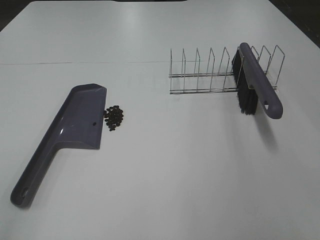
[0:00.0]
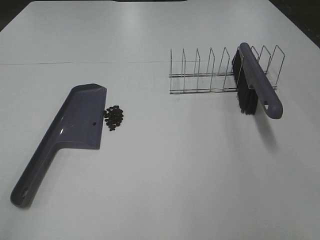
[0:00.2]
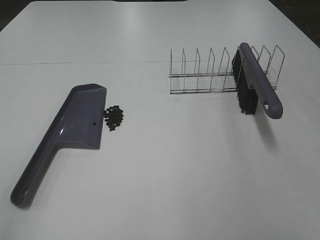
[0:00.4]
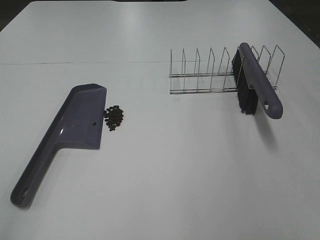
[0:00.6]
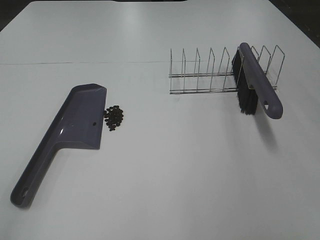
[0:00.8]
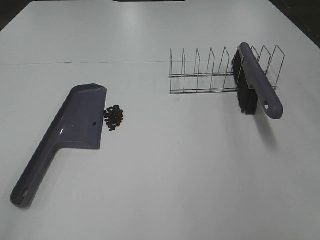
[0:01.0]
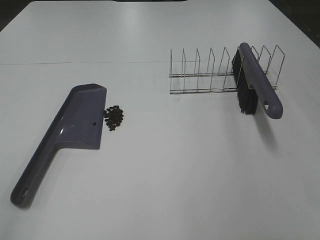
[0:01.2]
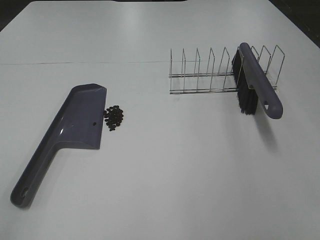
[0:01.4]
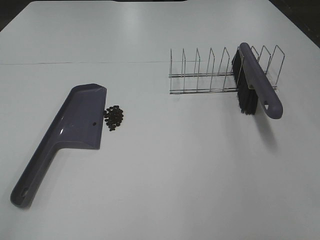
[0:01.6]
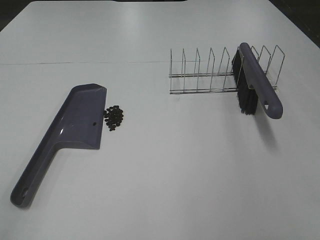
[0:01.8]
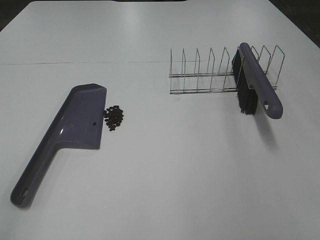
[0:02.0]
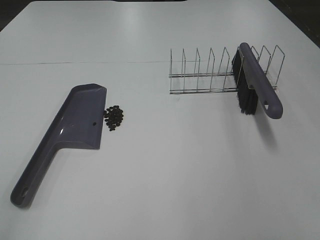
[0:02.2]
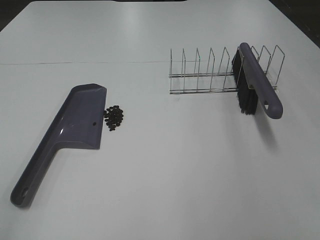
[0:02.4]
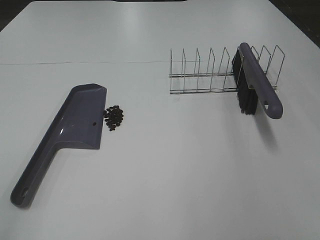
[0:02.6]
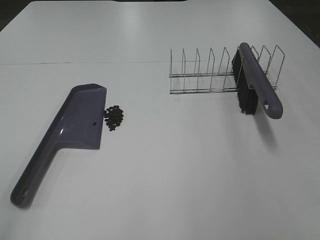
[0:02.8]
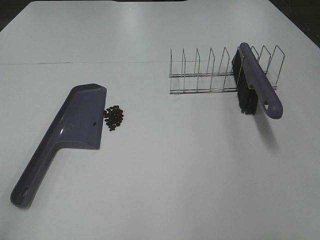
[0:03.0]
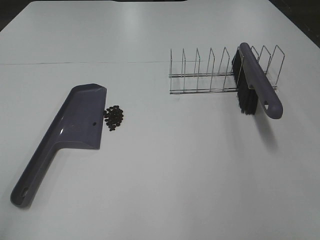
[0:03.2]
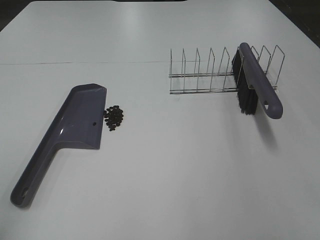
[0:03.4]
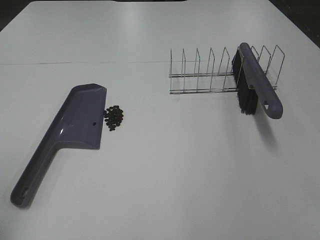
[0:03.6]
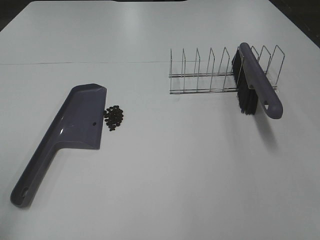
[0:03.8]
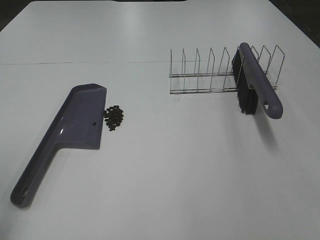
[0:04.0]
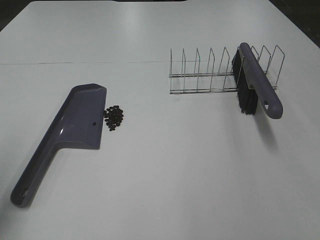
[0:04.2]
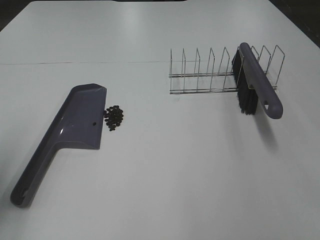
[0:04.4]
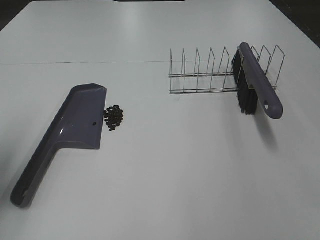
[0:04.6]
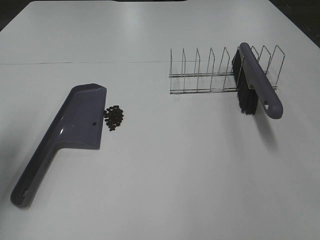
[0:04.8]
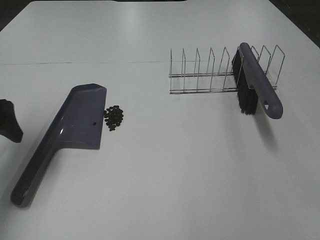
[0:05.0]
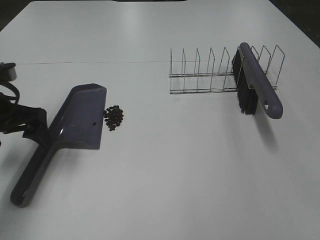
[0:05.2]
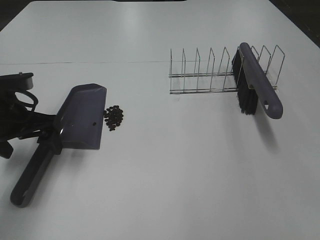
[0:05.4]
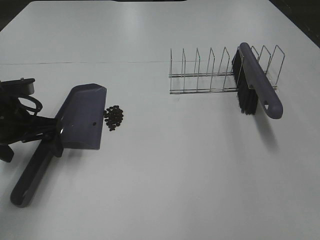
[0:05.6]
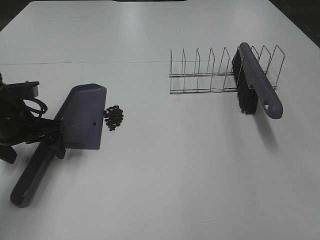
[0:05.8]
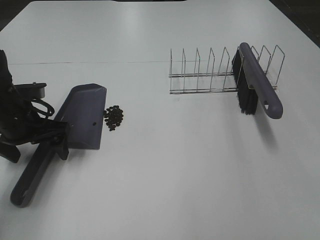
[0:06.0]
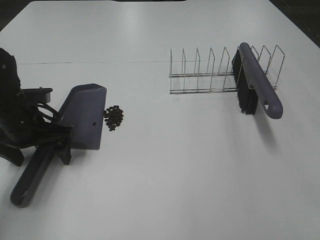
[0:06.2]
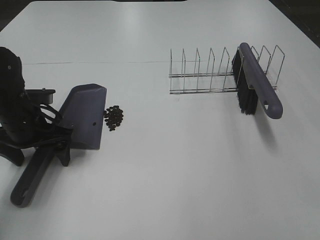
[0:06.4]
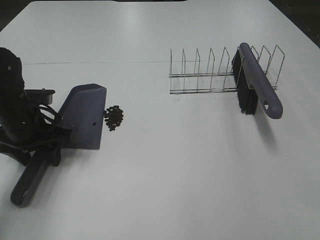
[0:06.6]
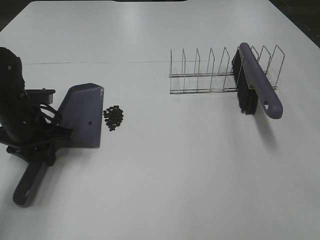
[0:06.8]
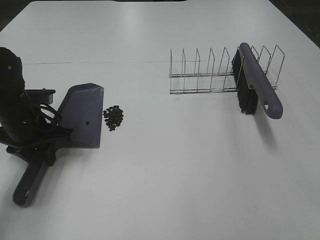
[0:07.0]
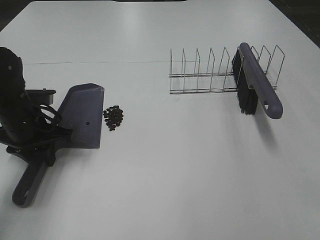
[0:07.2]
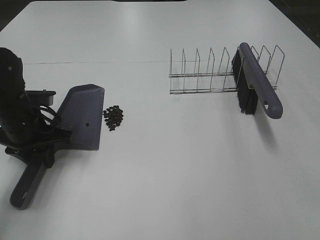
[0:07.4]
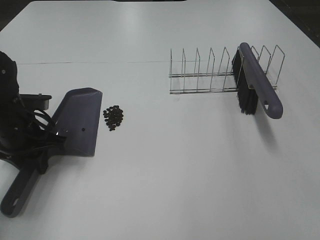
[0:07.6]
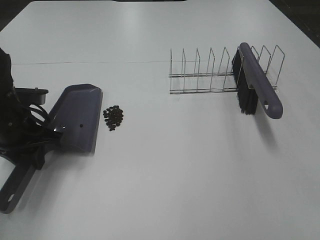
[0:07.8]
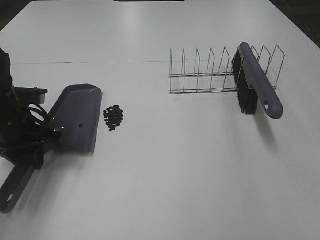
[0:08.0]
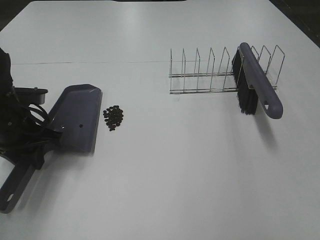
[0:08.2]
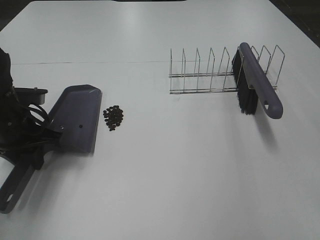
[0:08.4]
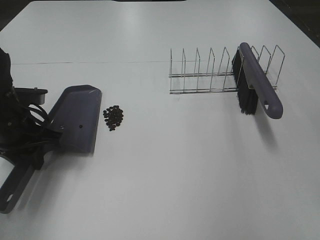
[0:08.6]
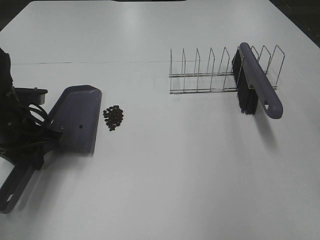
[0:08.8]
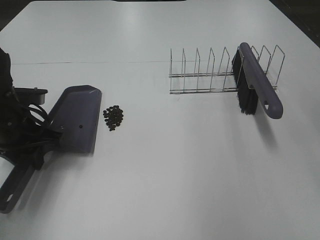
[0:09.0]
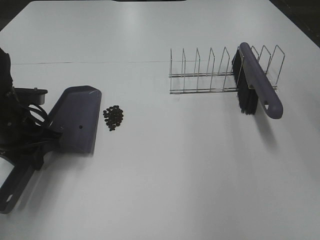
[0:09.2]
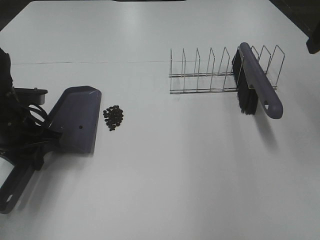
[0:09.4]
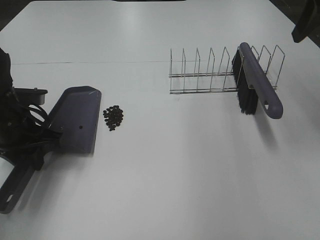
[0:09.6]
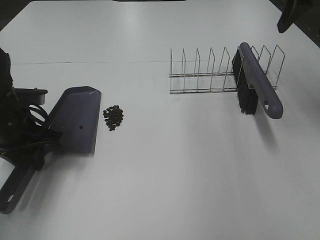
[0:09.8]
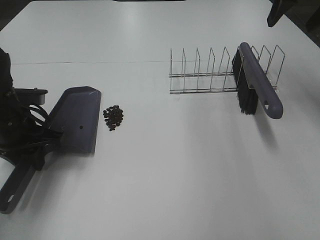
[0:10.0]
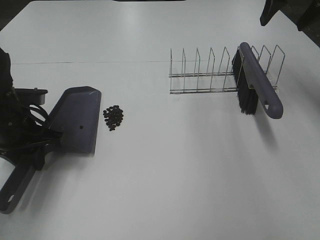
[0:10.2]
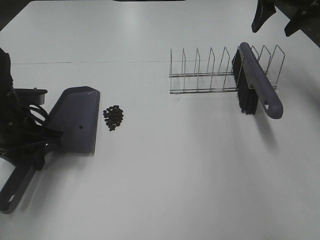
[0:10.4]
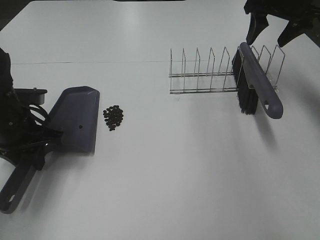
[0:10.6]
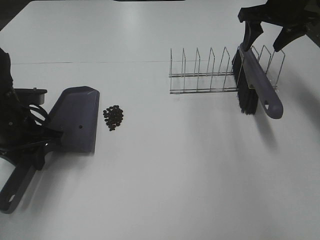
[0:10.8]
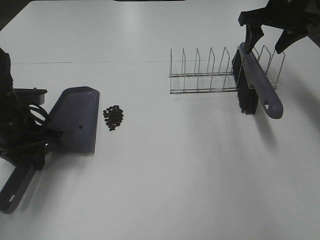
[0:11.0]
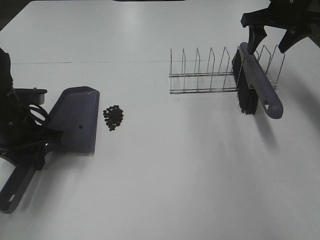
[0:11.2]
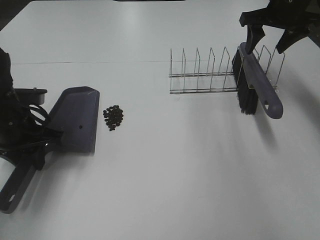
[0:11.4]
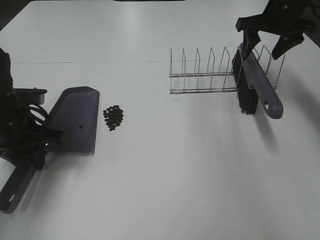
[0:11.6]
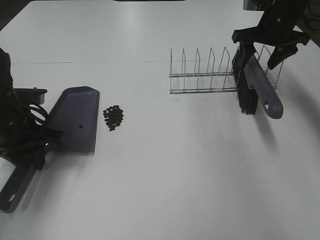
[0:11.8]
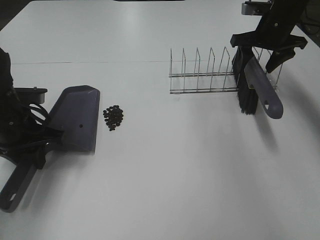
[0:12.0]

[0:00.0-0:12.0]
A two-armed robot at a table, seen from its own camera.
Task of the whole recording: Sweep Coffee Bean.
Step, 0:00.0 to 0:06.8: Left hand: grab the dustpan.
0:00.0 to 0:01.6: Neither gripper changes place.
0:03.0 to 0:04.4: The left gripper moves forward, about 20 cm.
0:04.4 to 0:06.0: The left gripper moves forward, downward and to the right, about 20 cm.
0:06.0 to 0:07.6: The left gripper closes its fingers.
0:09.0 to 0:10.4: The right gripper is displaced forward by about 25 cm.
0:10.4 to 0:12.0: The right gripper shifts roughly 10 cm downward.

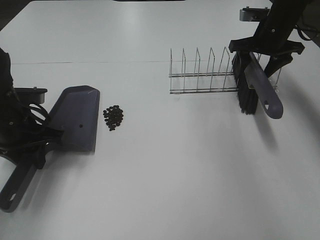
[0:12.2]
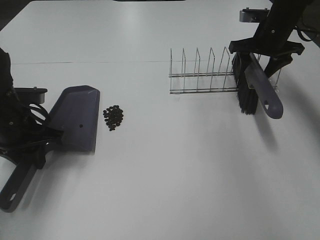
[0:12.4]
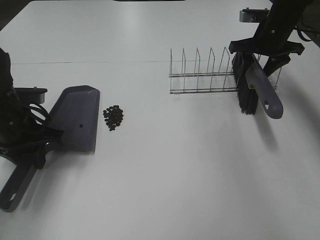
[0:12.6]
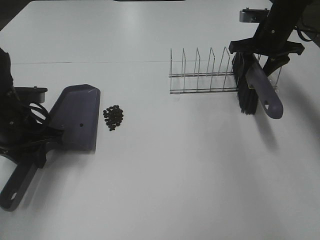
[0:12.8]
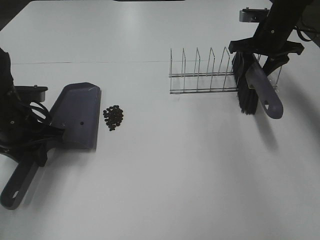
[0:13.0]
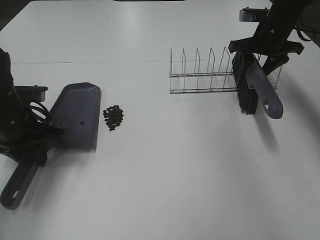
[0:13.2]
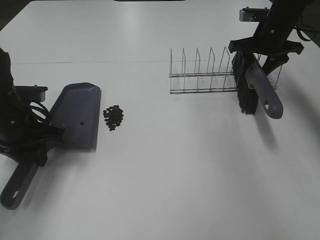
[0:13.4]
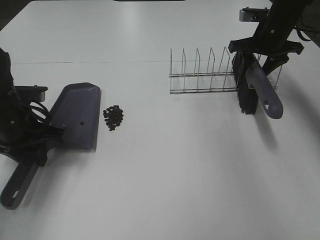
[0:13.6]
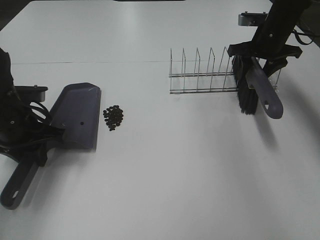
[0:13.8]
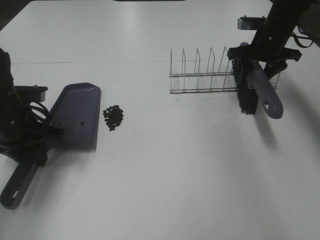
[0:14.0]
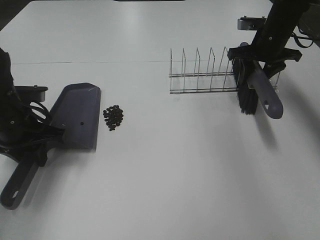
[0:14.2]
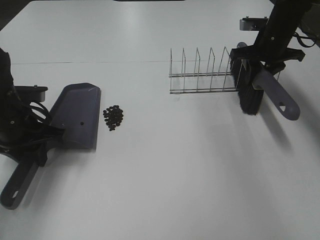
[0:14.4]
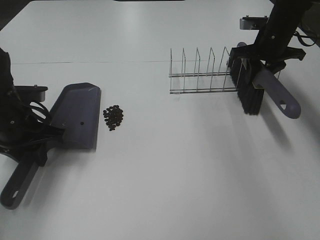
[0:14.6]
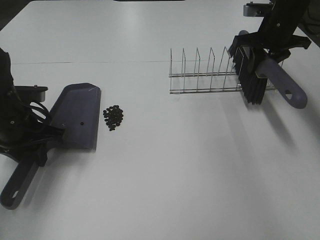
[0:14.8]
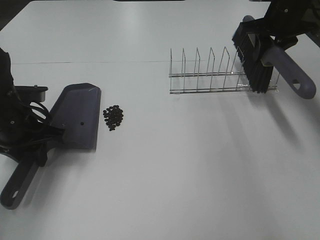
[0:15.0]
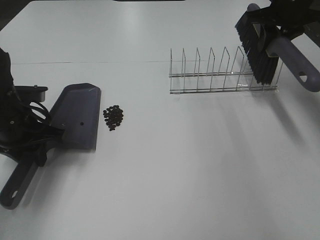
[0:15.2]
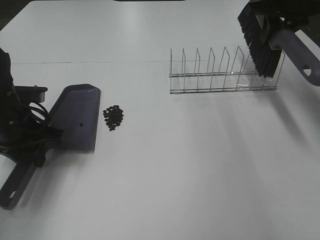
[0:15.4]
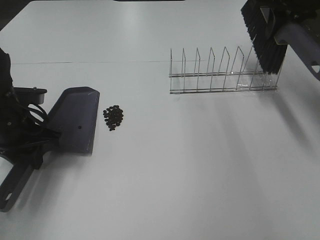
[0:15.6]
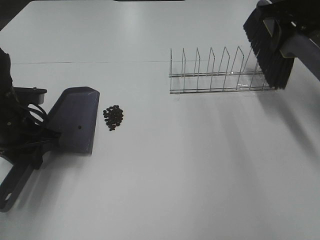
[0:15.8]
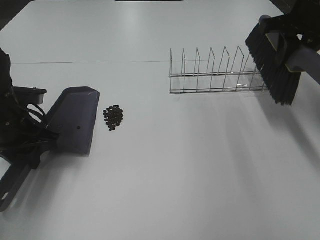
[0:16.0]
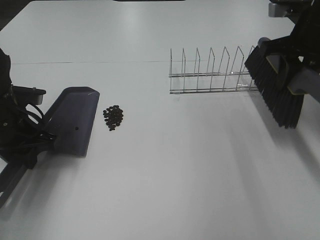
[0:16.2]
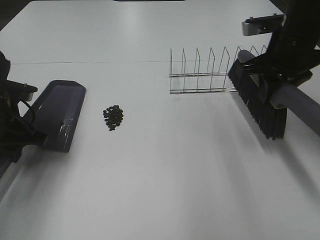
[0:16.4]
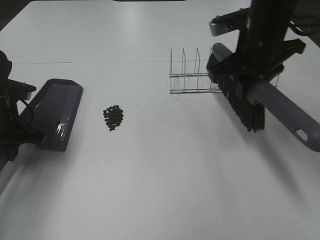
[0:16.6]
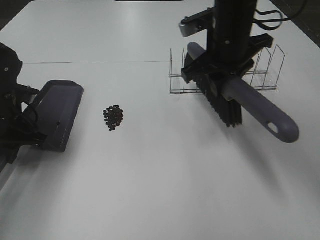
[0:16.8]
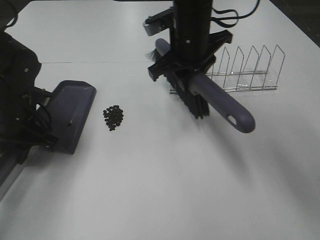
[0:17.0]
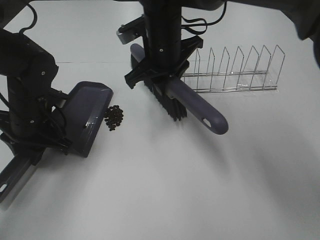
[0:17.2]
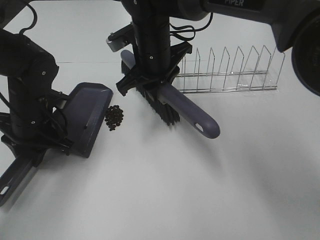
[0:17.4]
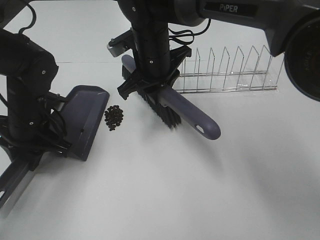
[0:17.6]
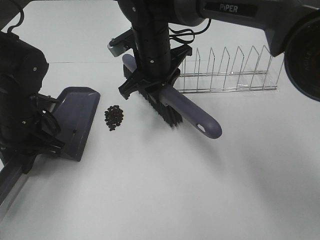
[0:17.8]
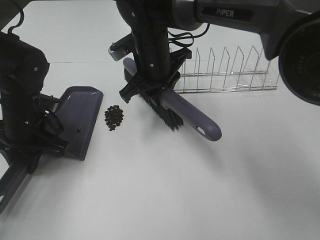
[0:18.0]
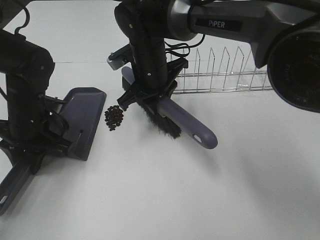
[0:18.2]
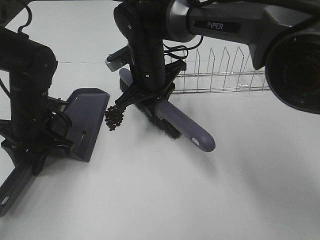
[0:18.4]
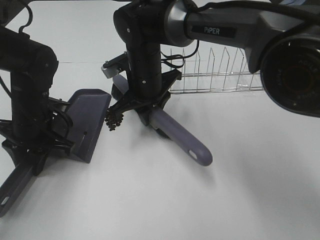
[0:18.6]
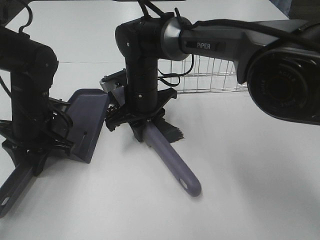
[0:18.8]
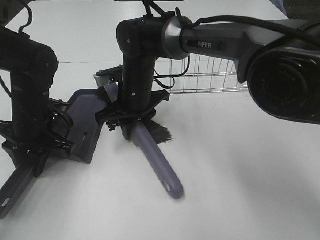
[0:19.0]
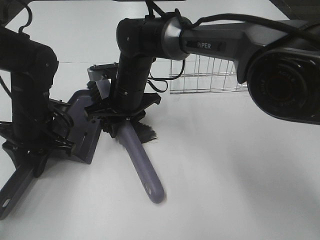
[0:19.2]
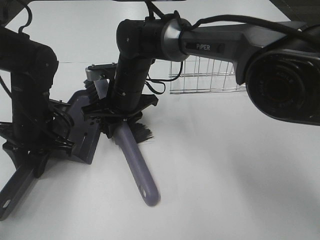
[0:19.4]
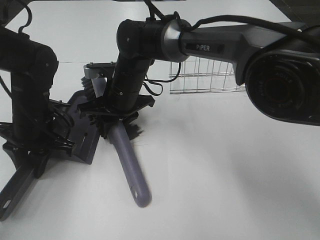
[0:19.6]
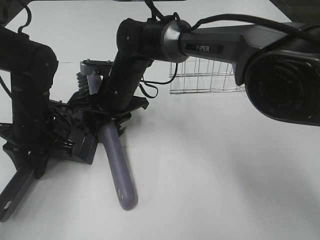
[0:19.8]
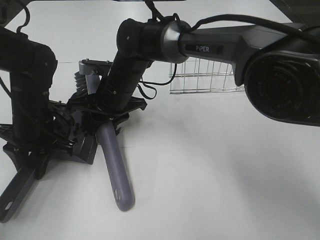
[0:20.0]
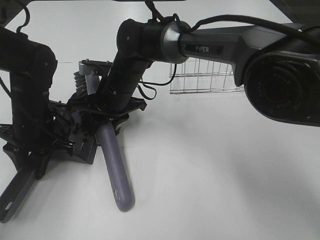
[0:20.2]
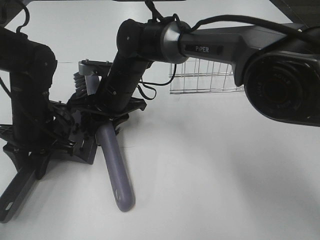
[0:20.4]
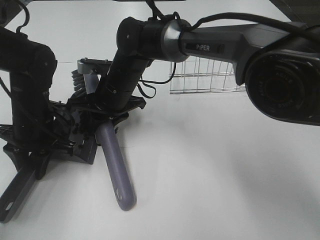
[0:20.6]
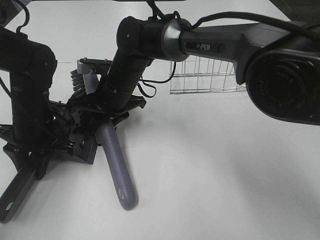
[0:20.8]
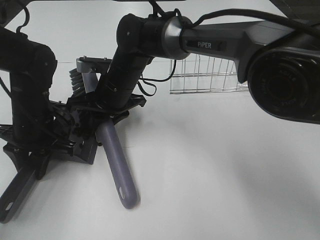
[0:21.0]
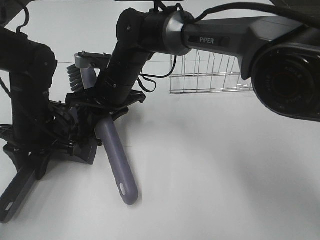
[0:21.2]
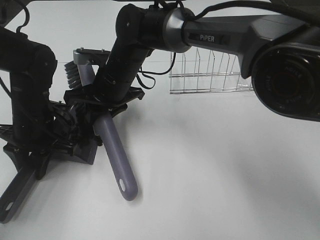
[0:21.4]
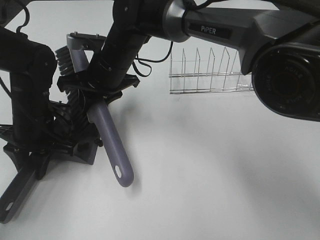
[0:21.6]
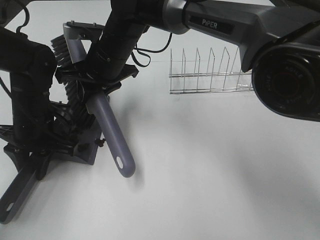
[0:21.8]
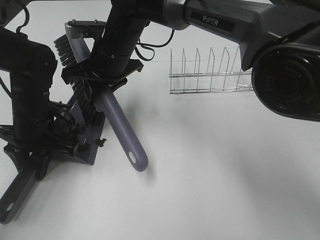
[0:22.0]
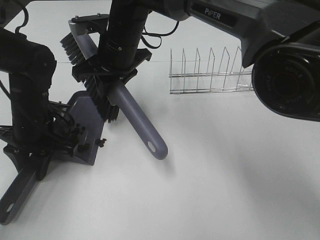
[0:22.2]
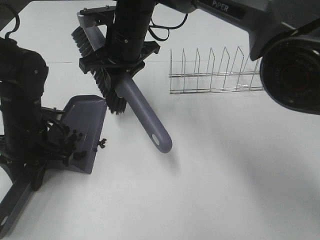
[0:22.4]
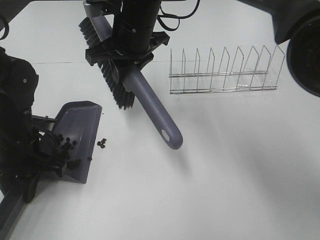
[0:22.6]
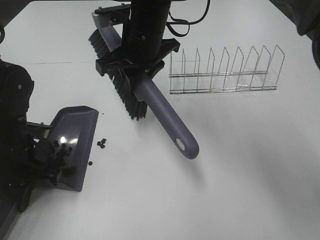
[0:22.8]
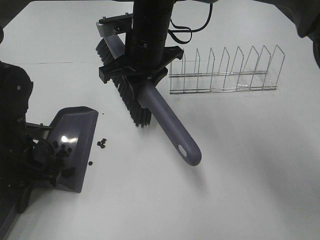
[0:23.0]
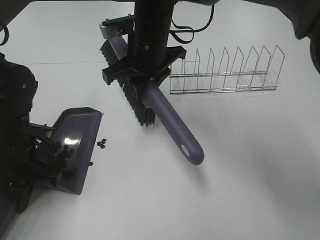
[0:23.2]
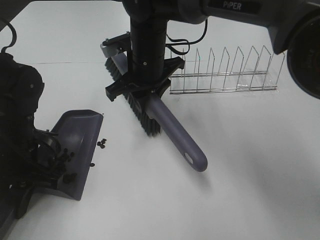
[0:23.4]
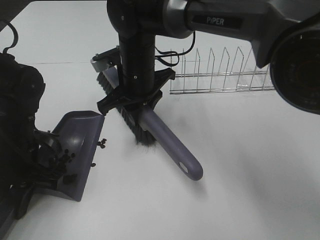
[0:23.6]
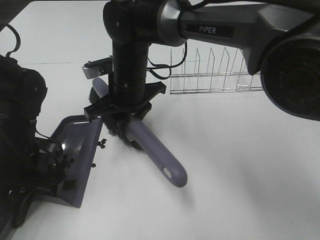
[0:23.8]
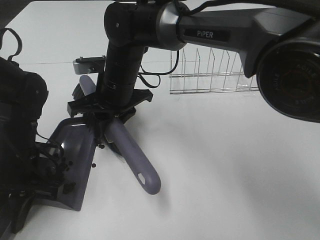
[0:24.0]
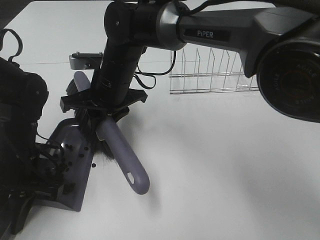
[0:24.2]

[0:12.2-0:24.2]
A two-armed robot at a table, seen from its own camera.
Task of the whole recording: Sweep Coffee Bean.
Step, 0:12.2 to 0:14.4: Right hand:grab the broom.
Step, 0:12.2 to 0:17.4: Left hand: move the dustpan to the left side of the coffee beans.
0:12.2 to 0:13.8: The two grippers keep their place.
0:13.8 to 0:15.2: The right gripper travels upward by some 10 cm, and closes.
0:15.2 to 0:16.6: The right gripper moves to the left and backward, approximately 15 cm.
0:16.6 to 0:18.2: The left gripper changes place by approximately 5 cm; the right gripper is displaced to the left and downward by some 20 cm.
0:18.2 to 0:19.8: The right gripper travels to the left by roughly 5 cm.
0:19.8 to 0:21.2: The grippers make only small movements.
0:21.2 to 0:22.6: The right gripper goes roughly 10 cm upward.
0:22.6 to 0:24.2: The right gripper moves downward, about 10 cm.
